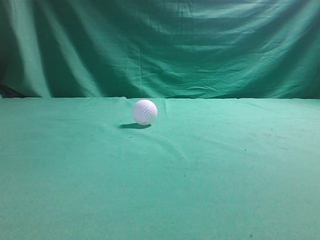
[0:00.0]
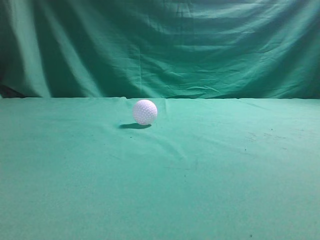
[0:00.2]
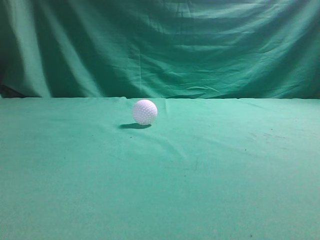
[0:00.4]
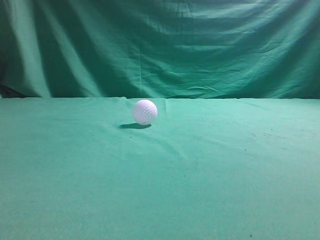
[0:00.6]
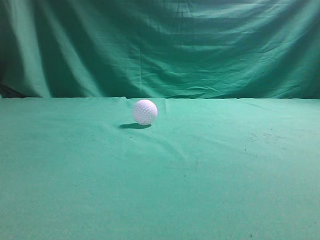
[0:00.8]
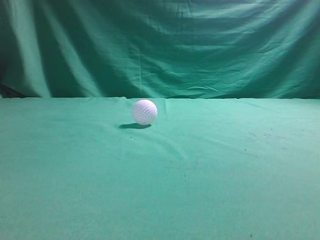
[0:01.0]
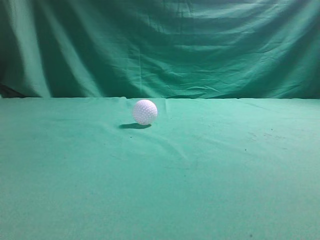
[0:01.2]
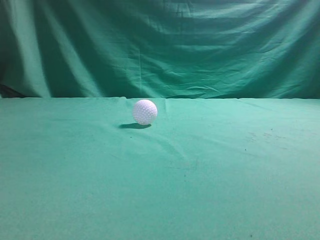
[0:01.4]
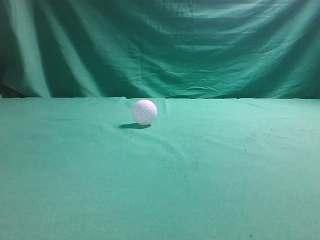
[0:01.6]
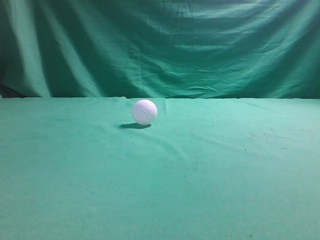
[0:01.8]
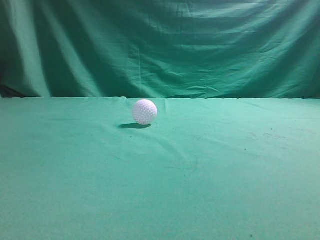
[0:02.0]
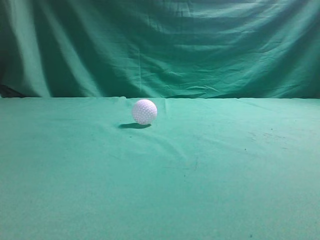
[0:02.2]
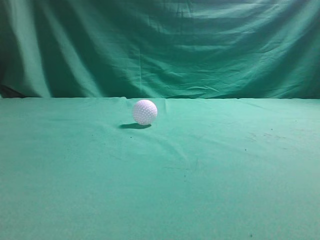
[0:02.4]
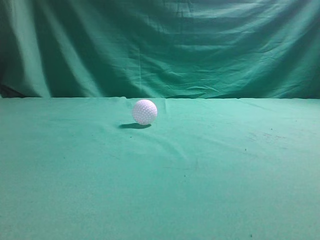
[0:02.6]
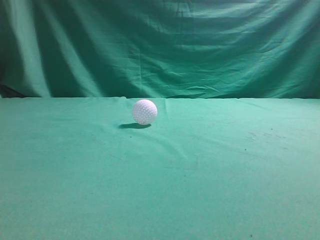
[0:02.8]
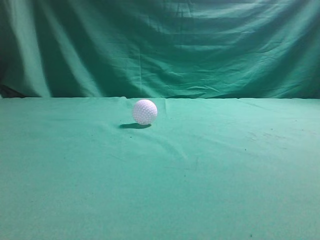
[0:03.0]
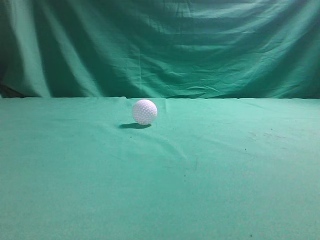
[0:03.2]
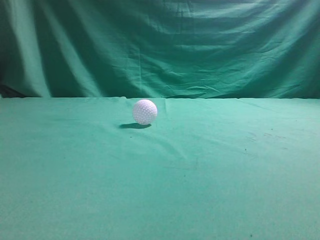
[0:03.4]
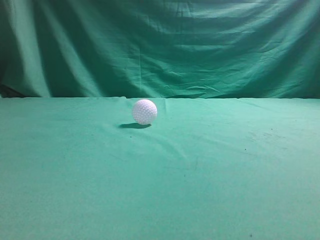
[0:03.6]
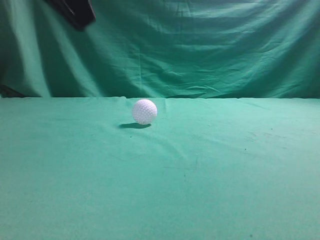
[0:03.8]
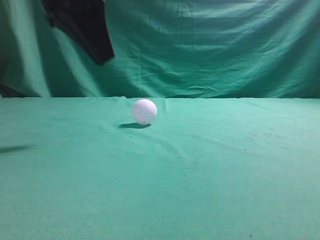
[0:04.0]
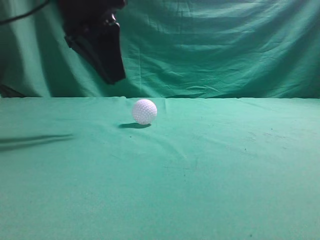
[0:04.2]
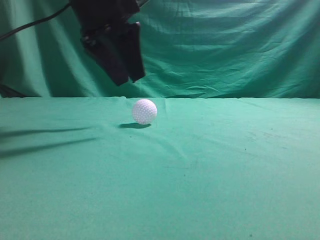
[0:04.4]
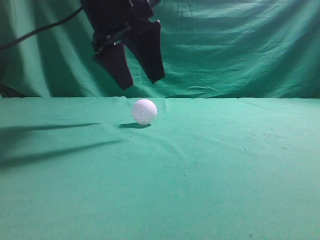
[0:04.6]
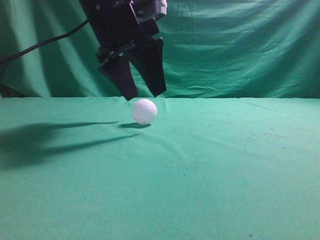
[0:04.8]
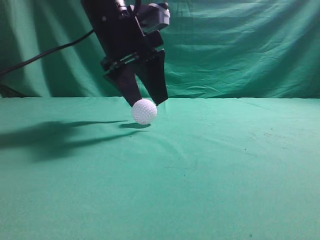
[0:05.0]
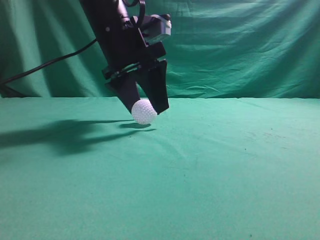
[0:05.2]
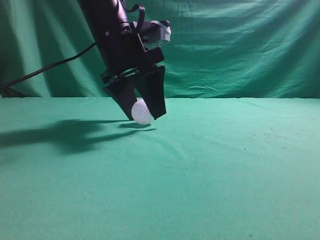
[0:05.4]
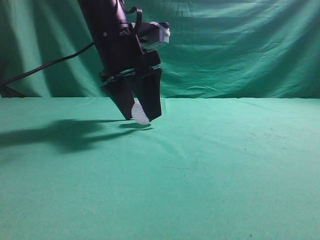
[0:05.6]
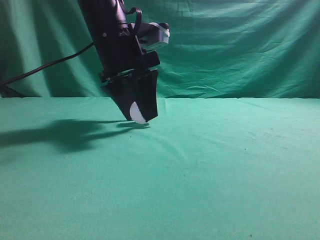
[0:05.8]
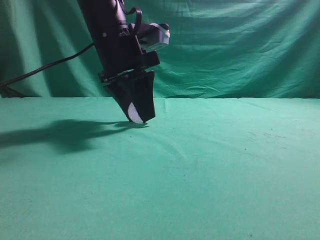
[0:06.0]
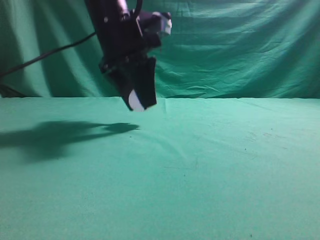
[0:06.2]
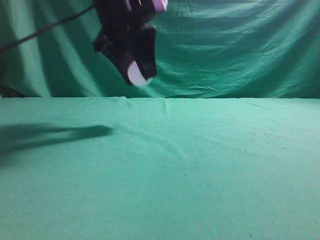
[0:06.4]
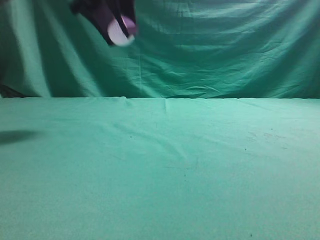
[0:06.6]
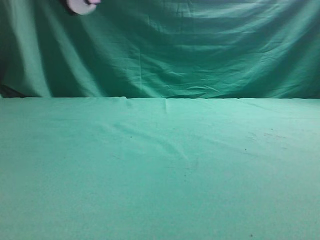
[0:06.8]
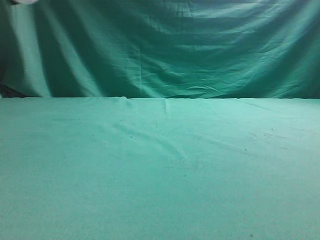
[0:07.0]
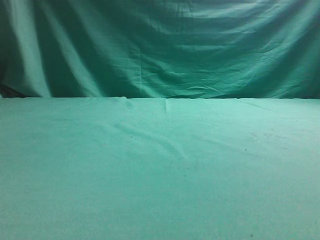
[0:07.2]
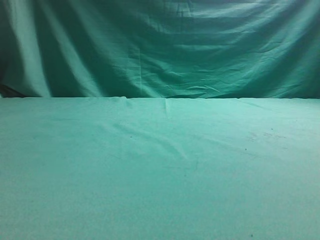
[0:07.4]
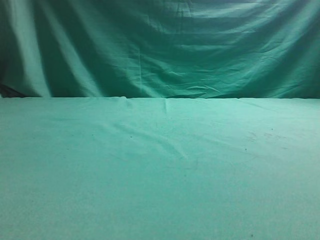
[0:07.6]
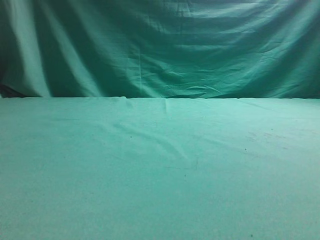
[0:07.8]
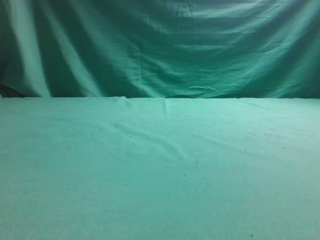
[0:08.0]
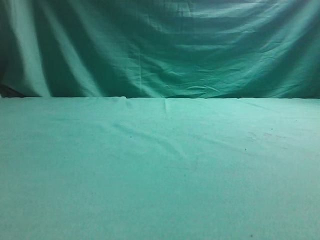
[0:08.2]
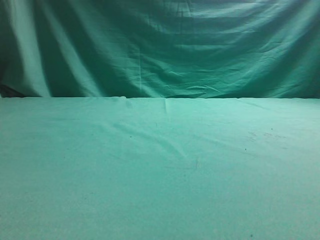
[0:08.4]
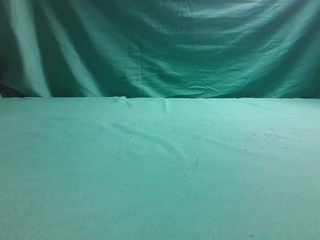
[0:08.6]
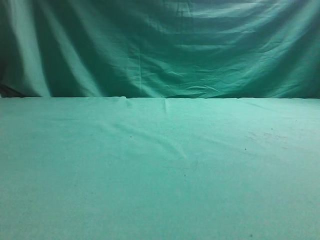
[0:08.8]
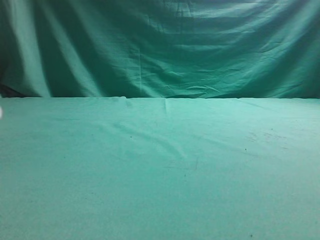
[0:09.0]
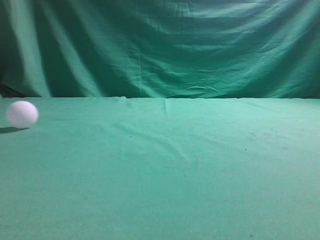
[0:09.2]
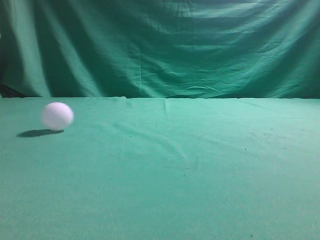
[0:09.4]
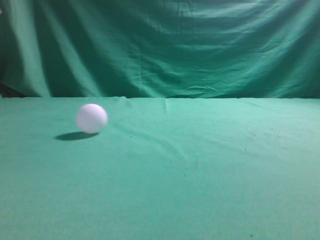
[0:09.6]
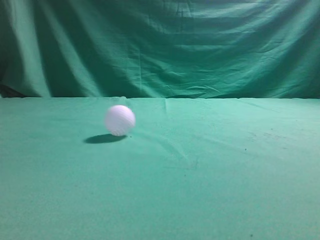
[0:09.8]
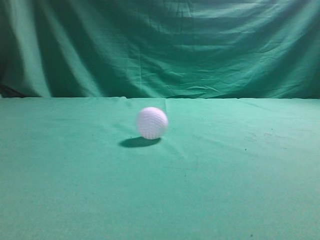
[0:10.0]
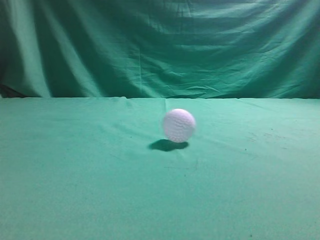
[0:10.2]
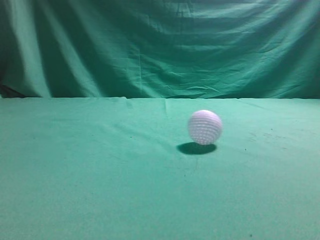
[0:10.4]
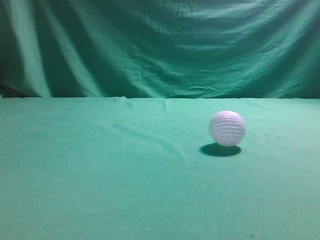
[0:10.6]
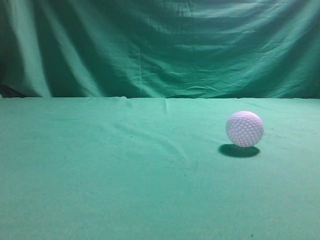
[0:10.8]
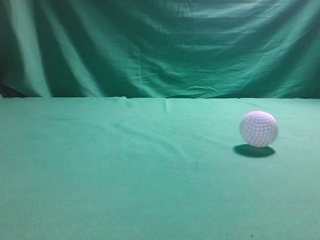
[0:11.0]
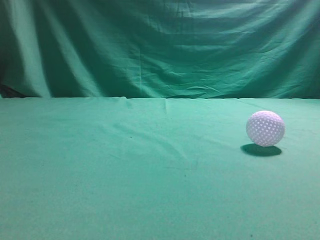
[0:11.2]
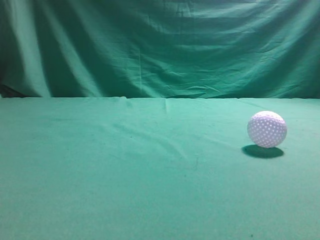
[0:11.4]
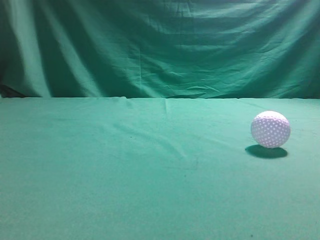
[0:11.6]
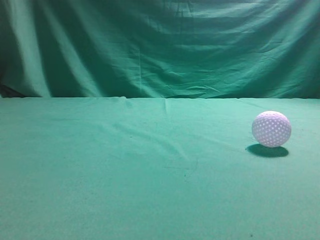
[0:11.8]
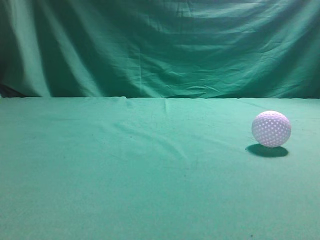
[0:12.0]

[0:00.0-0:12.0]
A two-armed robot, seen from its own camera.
Task of the whole recording: pick up the ball and place it on the plate, then pick up the ball from the plate and put it in the center of the table.
Step, 0:00.0 to 0:06.2: Grab the spherical object with your left arm.
Step, 0:06.4 to 0:08.6: Place the sphere on the white object.
0:03.0 to 0:04.4: The left gripper goes about 30 cm forward and to the right, and opens its fingers.
0:04.4 to 0:06.0: The left gripper moves downward, some 5 cm, and opens, then closes again.
0:06.0 to 0:07.6: The left gripper moves to the left, about 30 cm.
0:09.0 to 0:10.4: The left gripper moves upward, backward and to the right, some 25 cm, and closes its fingers.
0:10.4 to 0:12.0: The right gripper heads upward, forward and to the left, covering roughly 15 cm, while the left gripper travels downward and backward by approximately 10 cm.

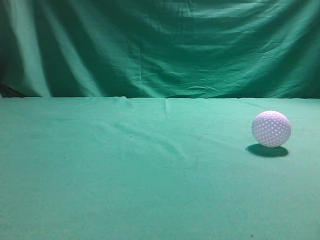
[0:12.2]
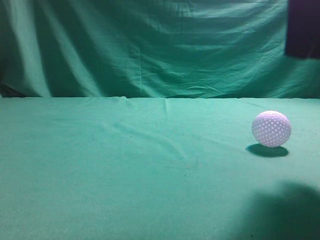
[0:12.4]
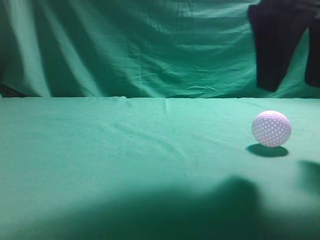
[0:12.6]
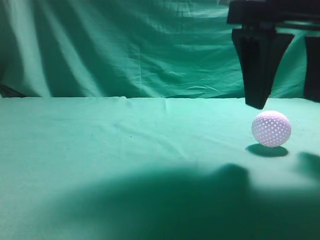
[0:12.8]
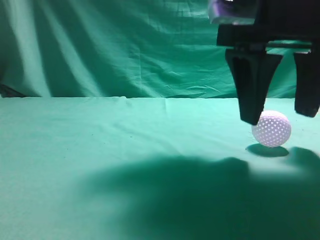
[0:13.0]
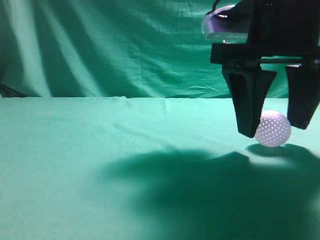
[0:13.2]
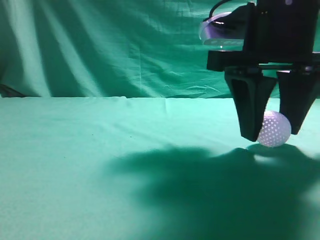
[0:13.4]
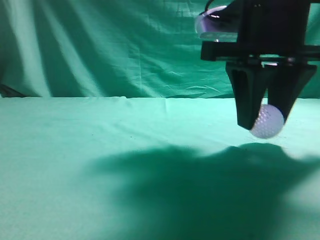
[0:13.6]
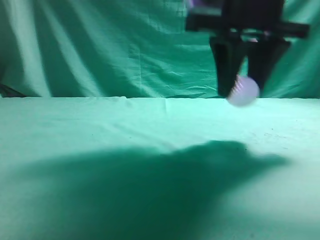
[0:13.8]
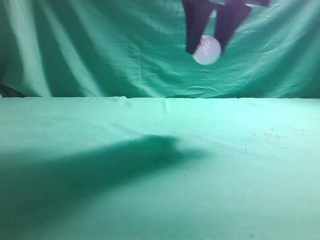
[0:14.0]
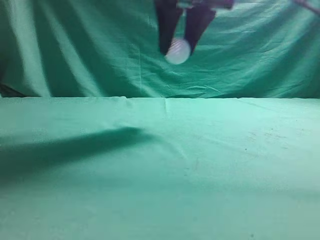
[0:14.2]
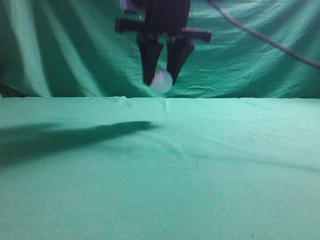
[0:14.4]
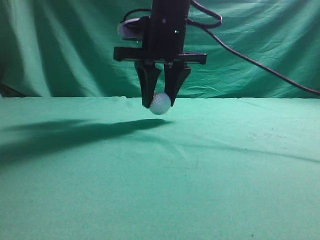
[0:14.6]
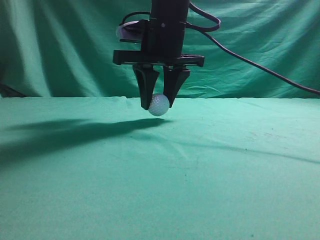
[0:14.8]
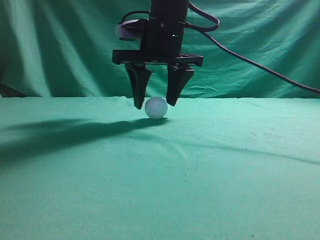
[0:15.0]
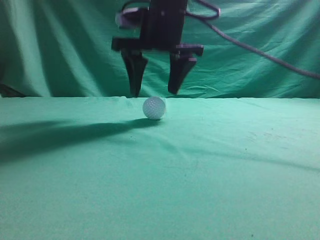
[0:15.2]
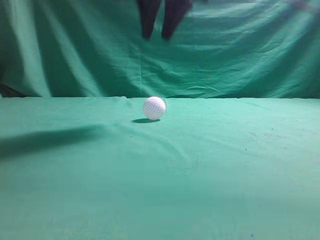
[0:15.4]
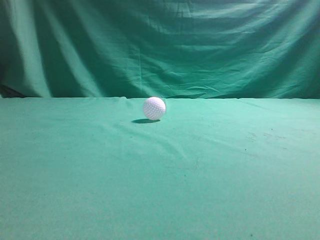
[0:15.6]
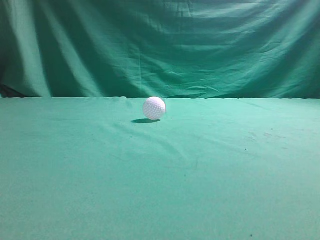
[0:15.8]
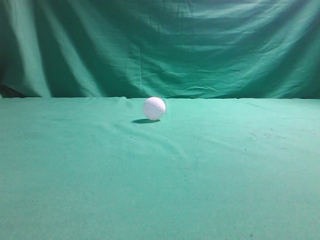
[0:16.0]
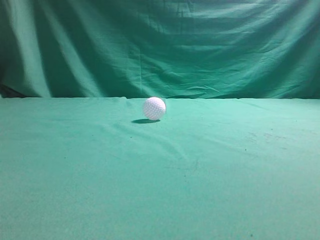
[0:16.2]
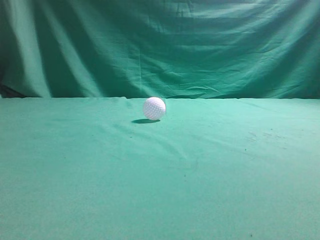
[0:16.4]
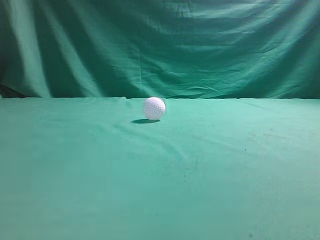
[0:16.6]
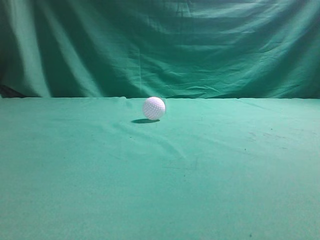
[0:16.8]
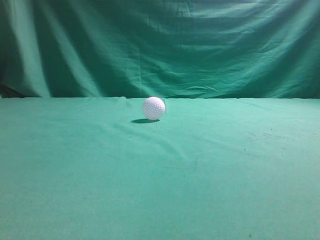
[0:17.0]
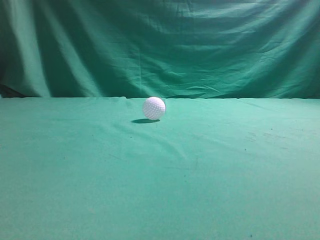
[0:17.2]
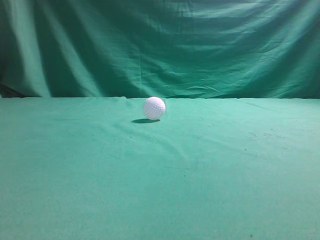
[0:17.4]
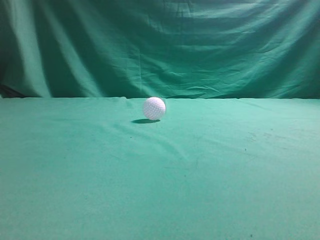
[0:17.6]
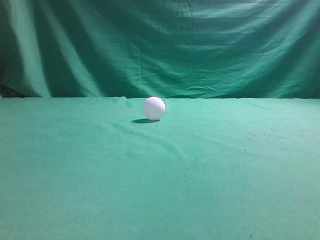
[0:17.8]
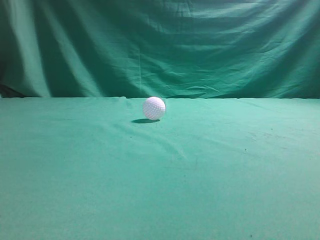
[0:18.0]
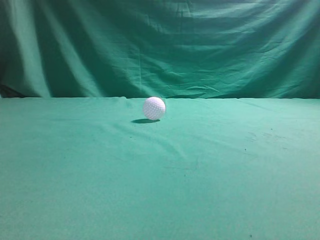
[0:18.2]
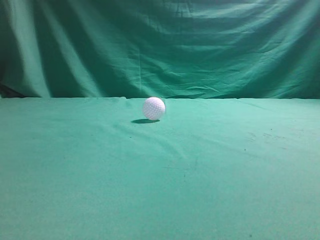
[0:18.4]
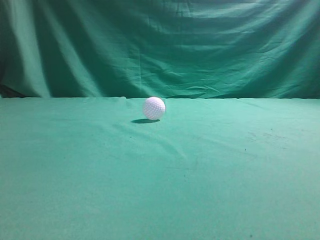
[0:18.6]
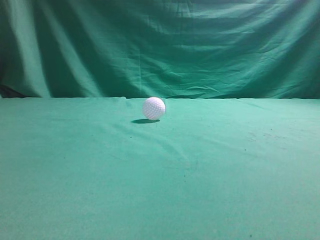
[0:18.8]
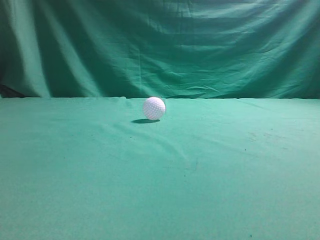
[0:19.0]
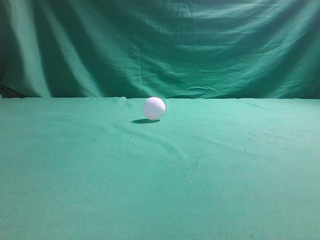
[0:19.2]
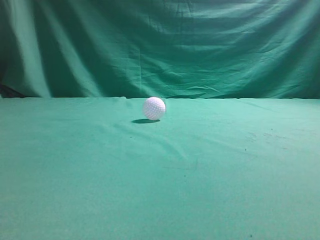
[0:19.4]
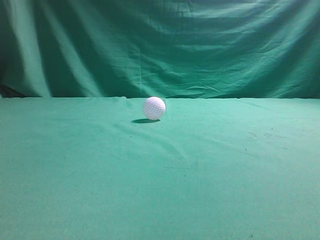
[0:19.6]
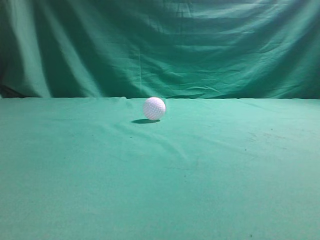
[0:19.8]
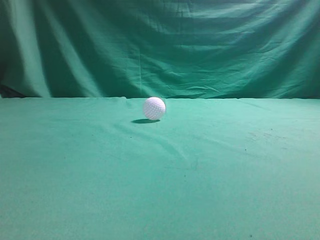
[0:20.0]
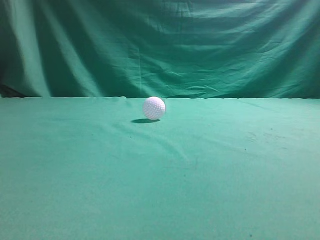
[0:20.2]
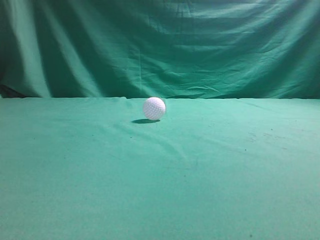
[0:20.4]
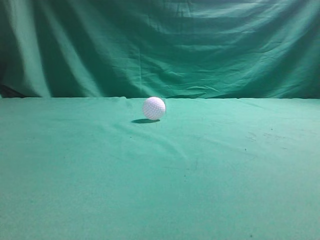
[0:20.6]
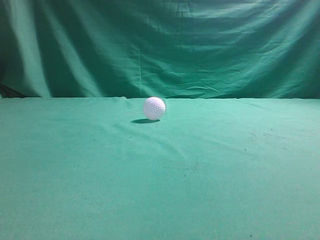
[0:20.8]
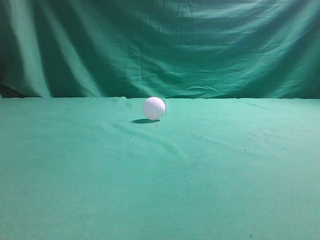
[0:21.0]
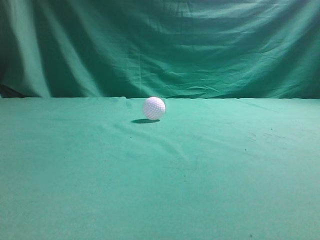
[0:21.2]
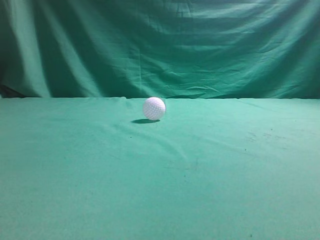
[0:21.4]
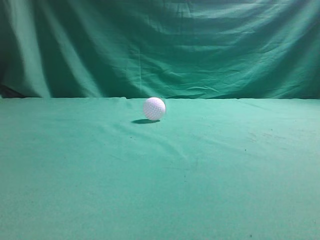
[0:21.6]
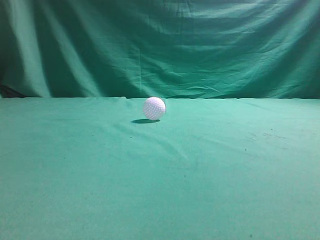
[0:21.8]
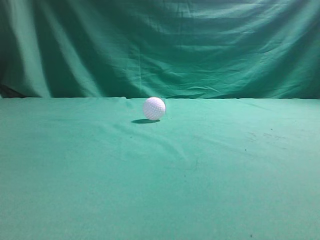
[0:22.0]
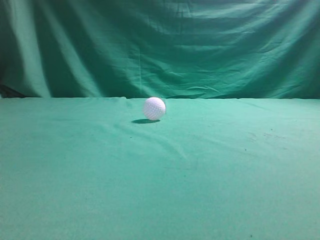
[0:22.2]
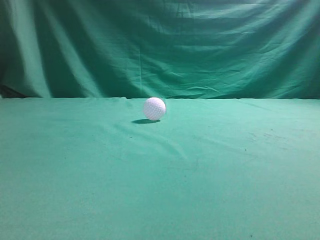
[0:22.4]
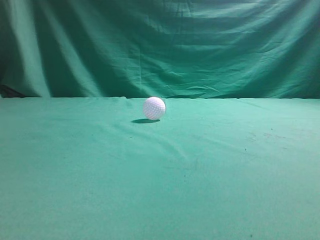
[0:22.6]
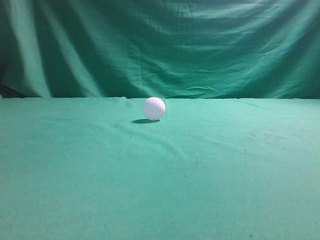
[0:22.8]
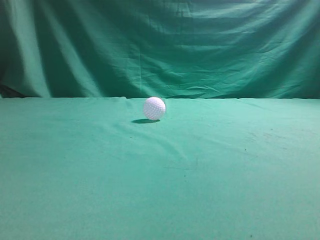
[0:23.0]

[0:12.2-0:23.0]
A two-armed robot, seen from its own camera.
Task of the whole recording: pick up the ball and place it on the plate, then pick up the ball from the plate and put it in the center of the table.
Step, 0:14.0 to 0:15.2: Put the picked-up object on the table.
0:12.2 to 0:13.8: The right gripper shifts some 15 cm forward, to the left and downward, and opens its fingers.
0:13.8 to 0:15.2: The right gripper goes approximately 15 cm forward and to the left, and opens.
0:15.2 to 0:16.8: The right gripper goes approximately 40 cm backward and to the right, and closes its fingers. The left gripper travels backward by approximately 5 cm.
